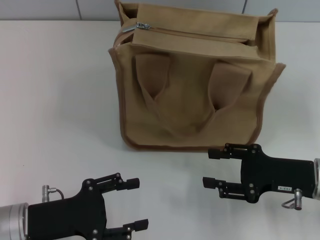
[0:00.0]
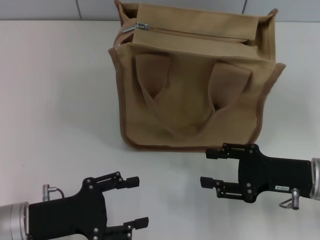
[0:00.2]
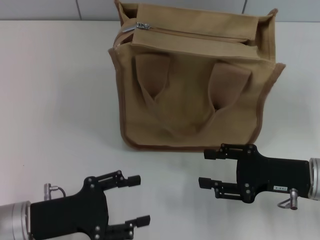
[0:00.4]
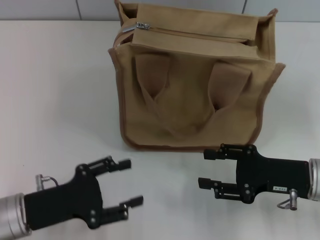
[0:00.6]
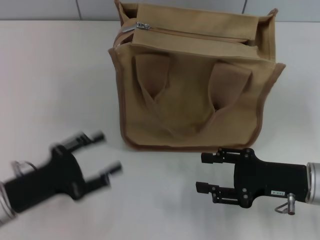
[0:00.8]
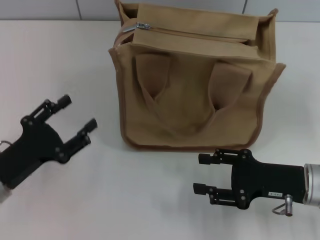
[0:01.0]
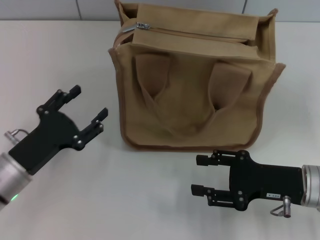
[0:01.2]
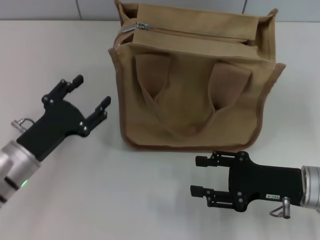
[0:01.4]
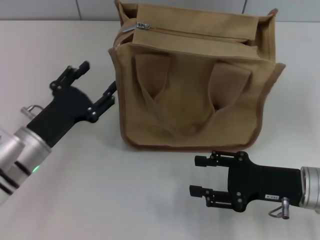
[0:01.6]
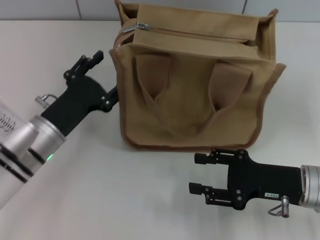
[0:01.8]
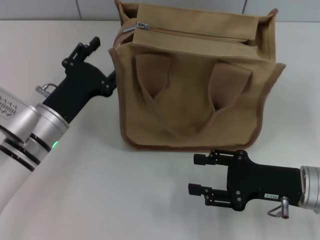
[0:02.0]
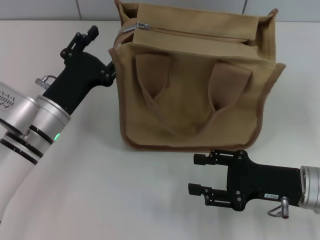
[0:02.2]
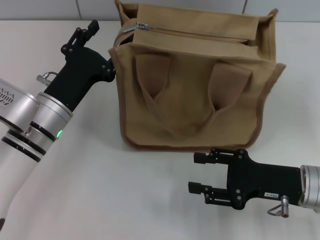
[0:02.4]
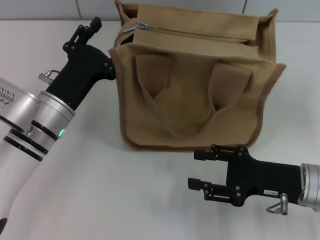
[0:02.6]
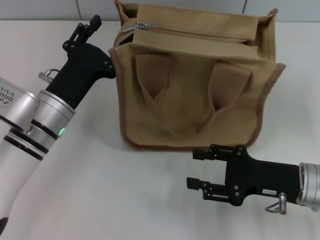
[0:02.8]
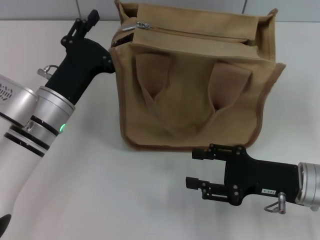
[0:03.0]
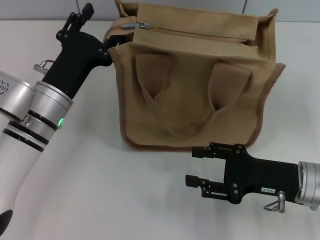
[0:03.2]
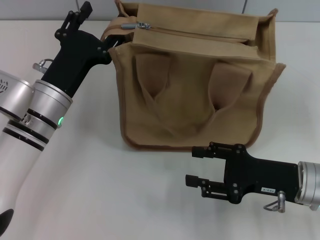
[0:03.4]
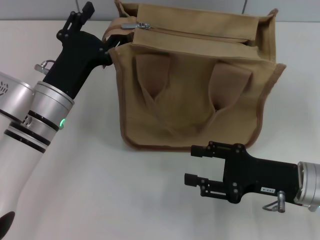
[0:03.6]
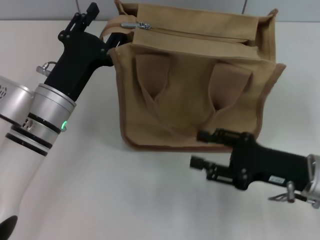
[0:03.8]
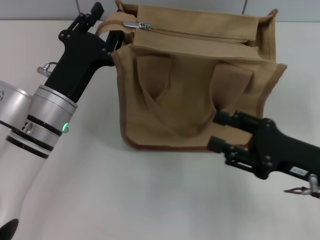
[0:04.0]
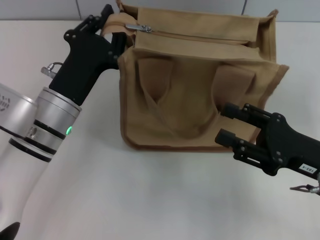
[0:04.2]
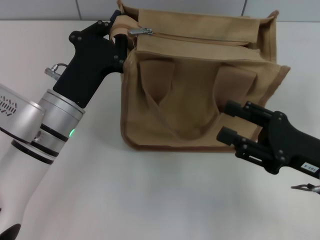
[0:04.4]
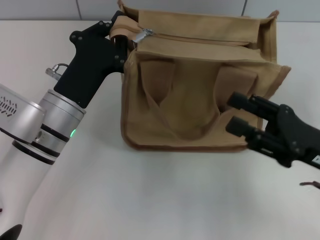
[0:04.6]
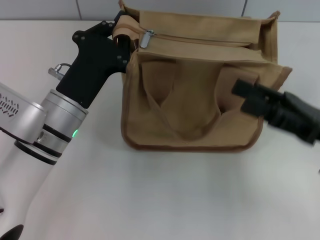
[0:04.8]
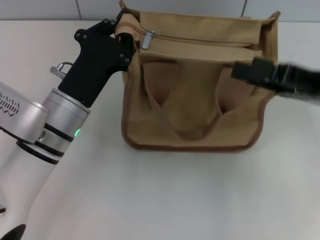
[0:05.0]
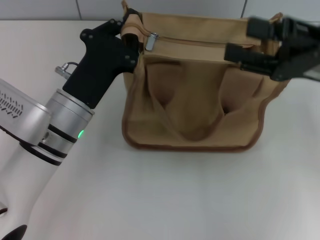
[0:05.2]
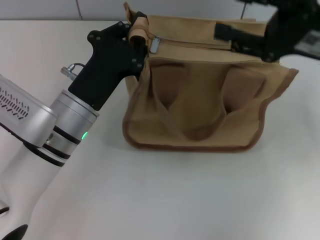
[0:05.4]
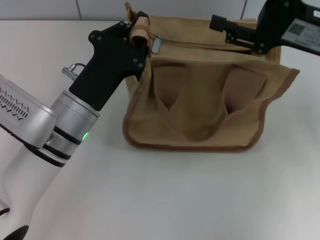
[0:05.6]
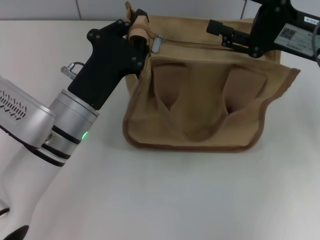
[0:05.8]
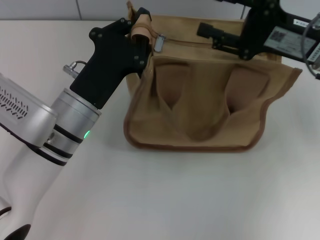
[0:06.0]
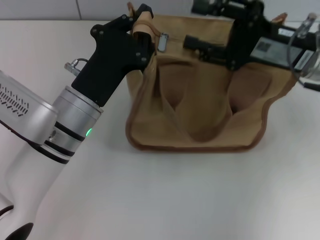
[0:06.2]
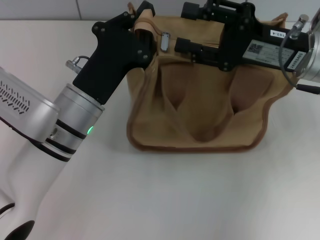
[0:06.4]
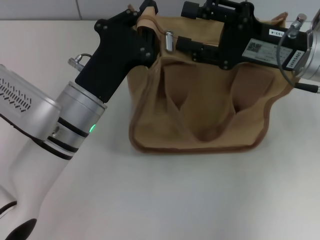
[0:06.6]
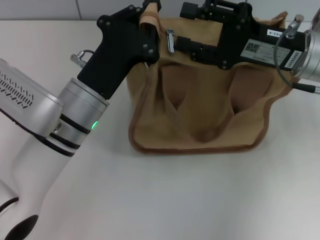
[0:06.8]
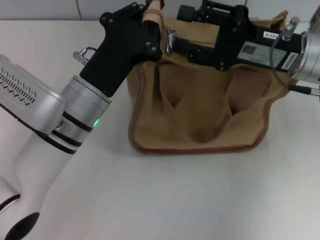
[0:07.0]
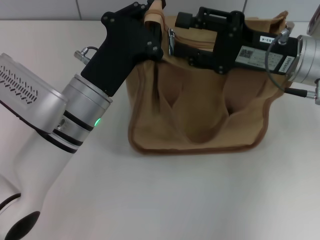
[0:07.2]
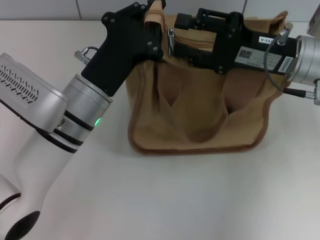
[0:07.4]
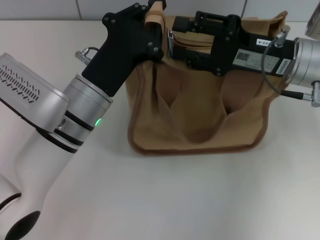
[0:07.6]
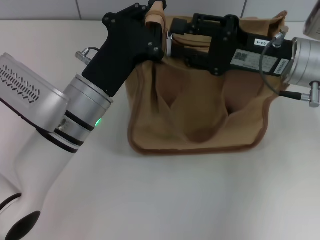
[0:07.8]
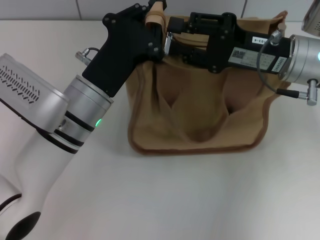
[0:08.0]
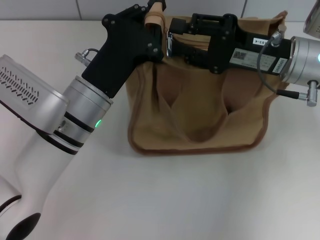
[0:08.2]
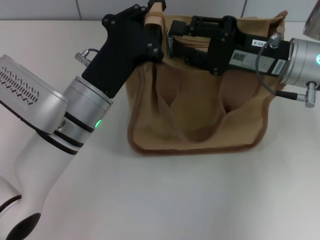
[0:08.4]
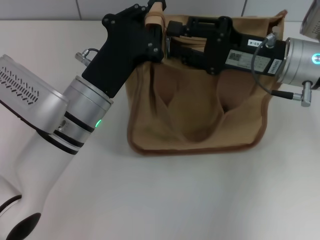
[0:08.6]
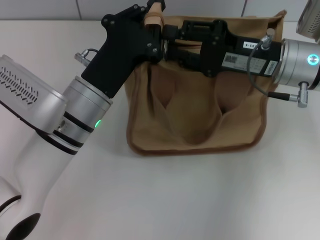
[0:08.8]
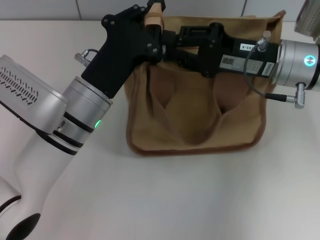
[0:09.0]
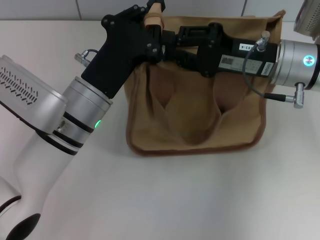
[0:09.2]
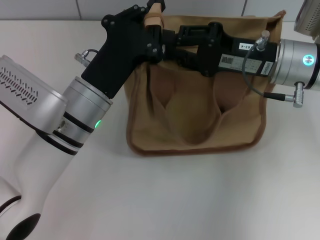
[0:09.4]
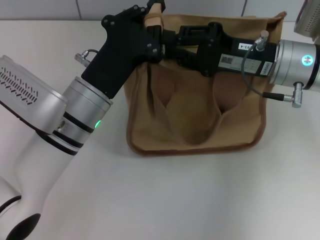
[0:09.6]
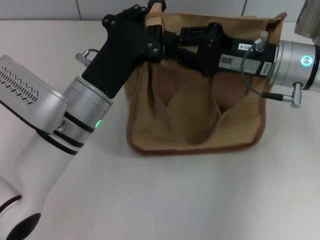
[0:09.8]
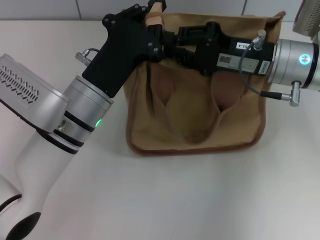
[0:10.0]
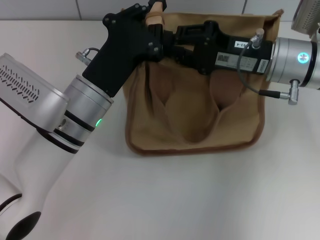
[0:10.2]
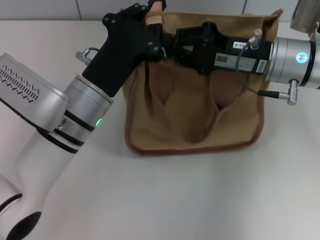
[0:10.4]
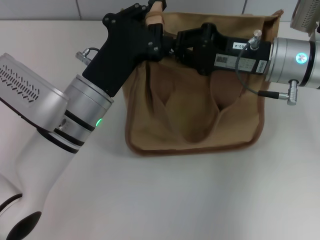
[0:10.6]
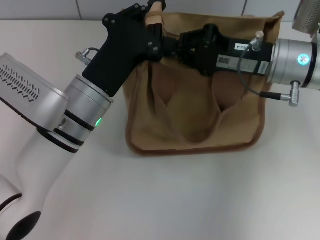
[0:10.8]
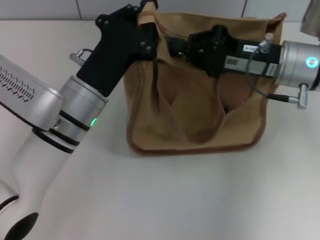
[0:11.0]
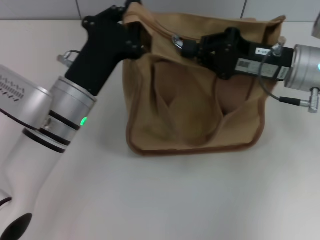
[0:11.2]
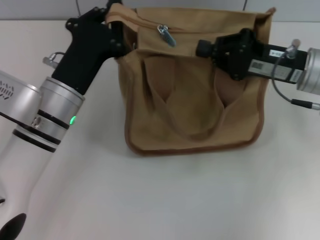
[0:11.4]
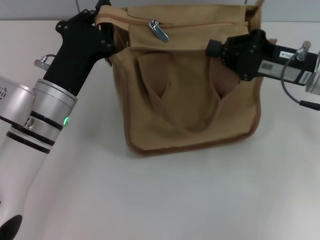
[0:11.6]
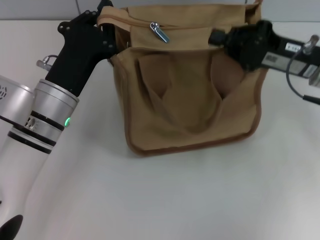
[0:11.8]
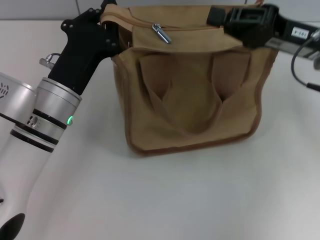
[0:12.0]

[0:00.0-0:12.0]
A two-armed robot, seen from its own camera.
0:00.0 to 0:01.6: The left gripper heads forward, covering roughly 5 cm.
0:01.6 to 0:03.0: The left gripper is displaced to the right and forward by some 5 cm.
0:03.0 to 0:04.4: The left gripper closes.
0:04.4 to 0:06.0: The right gripper moves forward and upward, some 15 cm.
0:07.6 to 0:09.0: There are only small adjustments of the grippers.
0:09.0 to 0:10.4: Both grippers stay about where they are.
0:10.4 to 0:12.0: The right gripper heads to the right, covering approximately 5 cm.

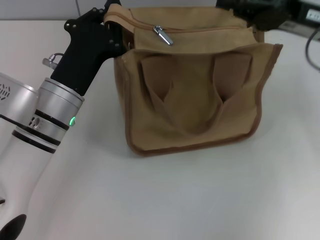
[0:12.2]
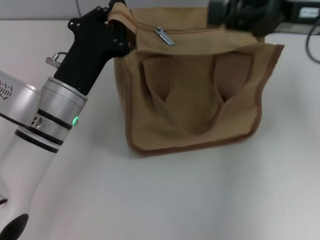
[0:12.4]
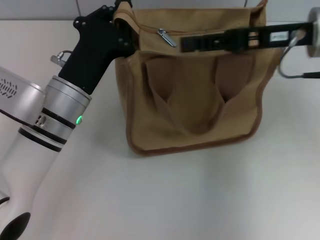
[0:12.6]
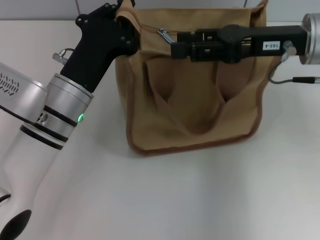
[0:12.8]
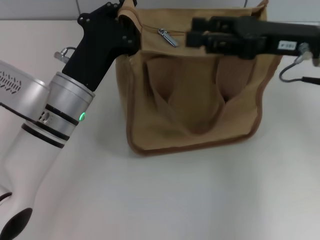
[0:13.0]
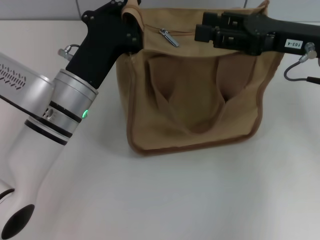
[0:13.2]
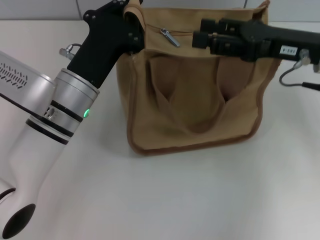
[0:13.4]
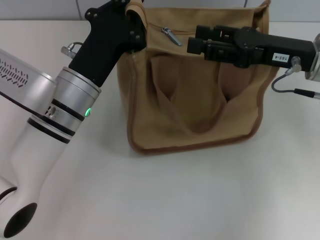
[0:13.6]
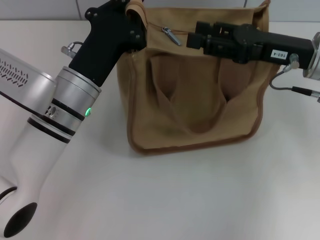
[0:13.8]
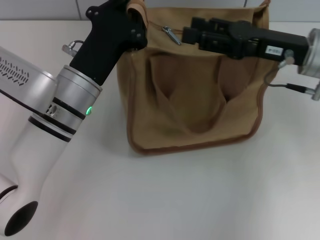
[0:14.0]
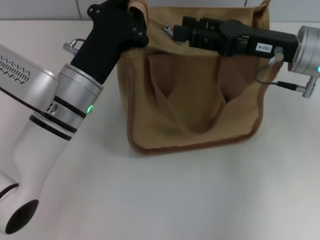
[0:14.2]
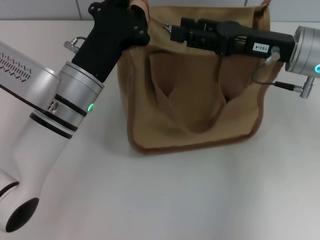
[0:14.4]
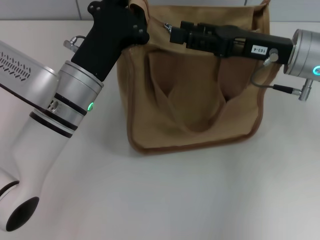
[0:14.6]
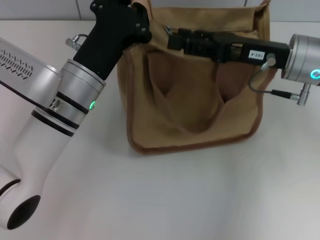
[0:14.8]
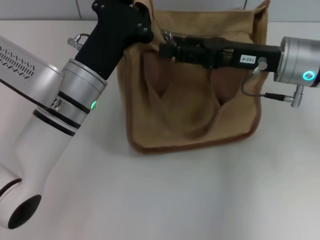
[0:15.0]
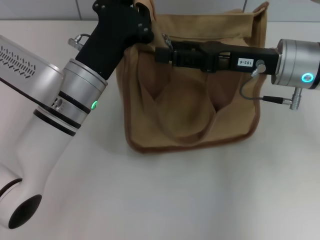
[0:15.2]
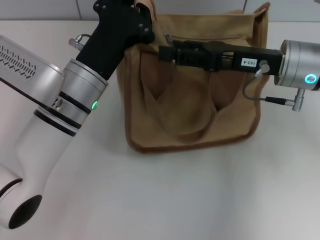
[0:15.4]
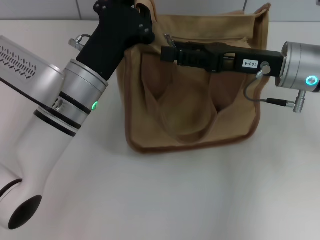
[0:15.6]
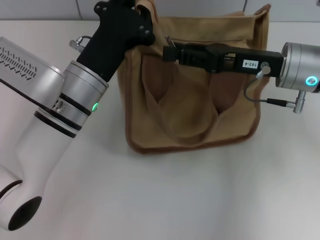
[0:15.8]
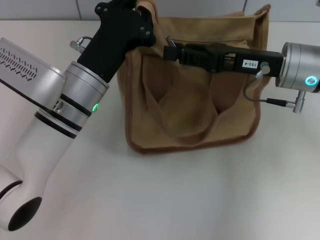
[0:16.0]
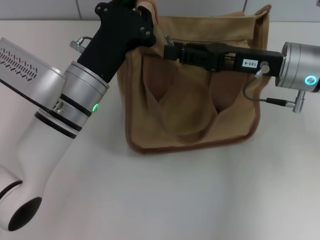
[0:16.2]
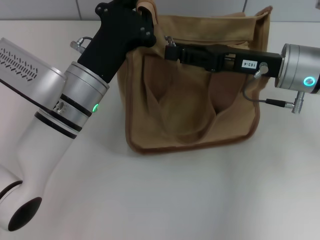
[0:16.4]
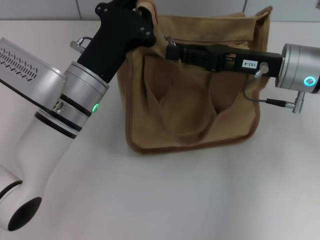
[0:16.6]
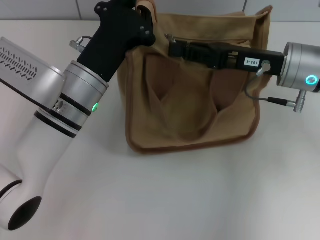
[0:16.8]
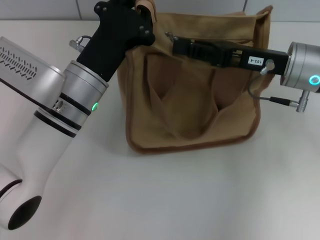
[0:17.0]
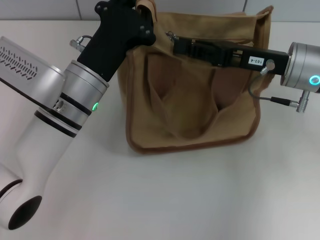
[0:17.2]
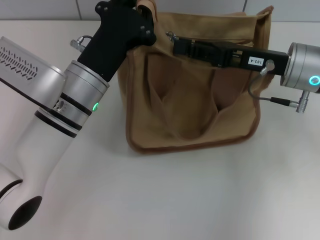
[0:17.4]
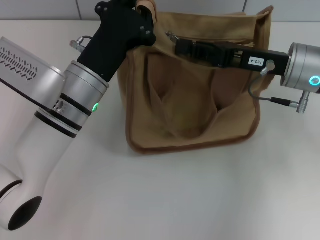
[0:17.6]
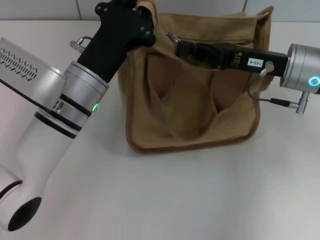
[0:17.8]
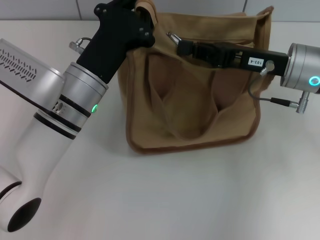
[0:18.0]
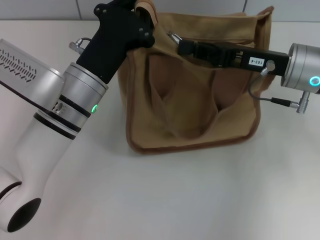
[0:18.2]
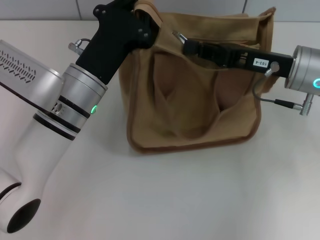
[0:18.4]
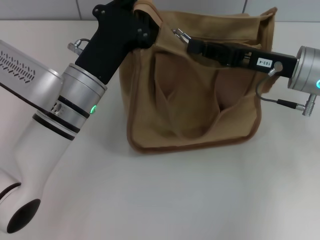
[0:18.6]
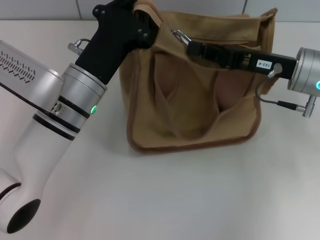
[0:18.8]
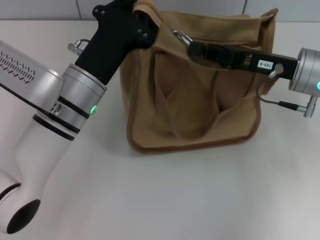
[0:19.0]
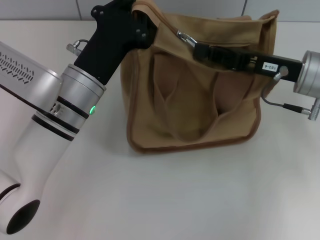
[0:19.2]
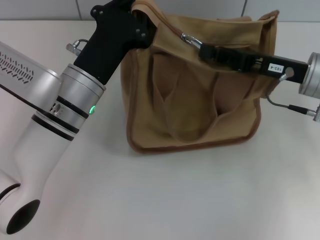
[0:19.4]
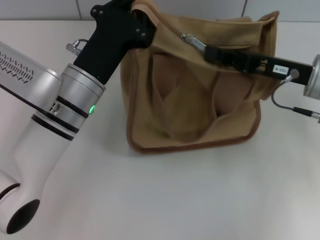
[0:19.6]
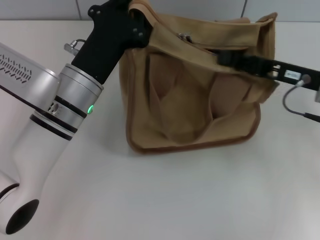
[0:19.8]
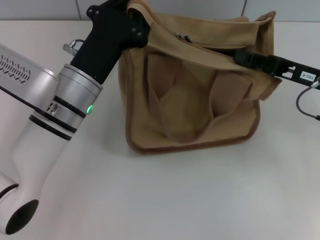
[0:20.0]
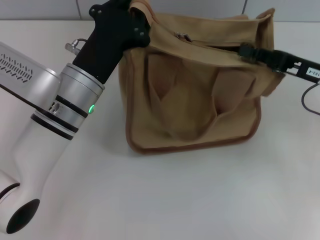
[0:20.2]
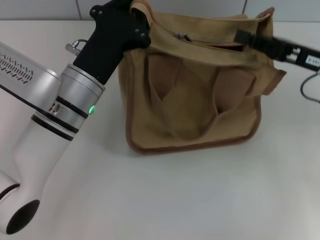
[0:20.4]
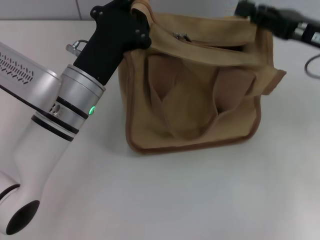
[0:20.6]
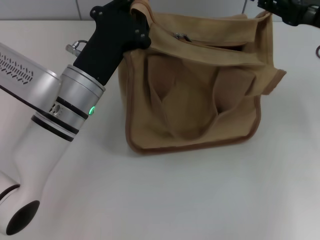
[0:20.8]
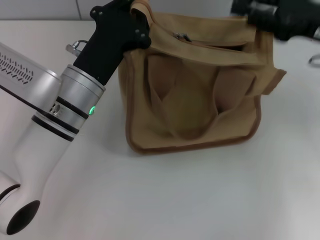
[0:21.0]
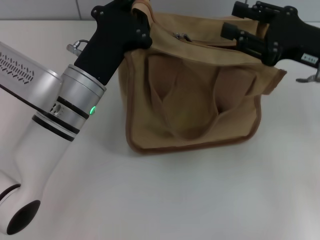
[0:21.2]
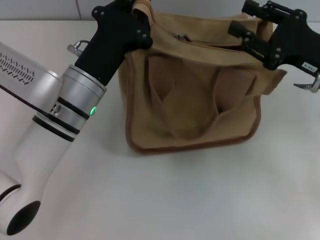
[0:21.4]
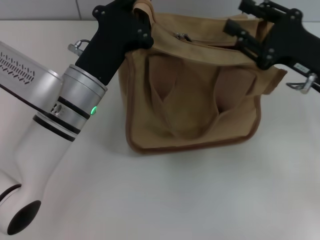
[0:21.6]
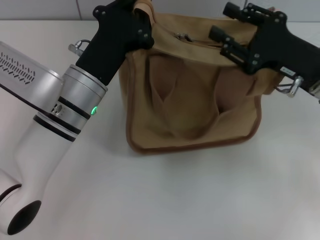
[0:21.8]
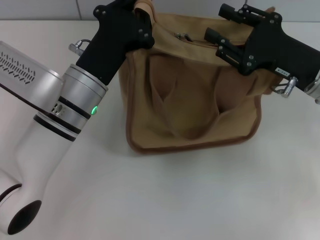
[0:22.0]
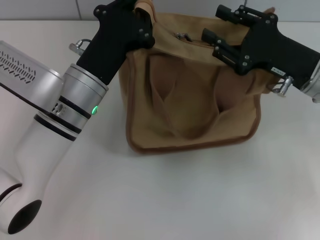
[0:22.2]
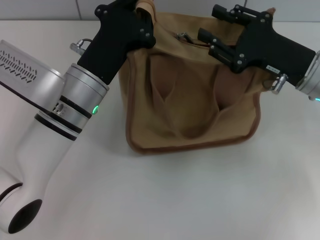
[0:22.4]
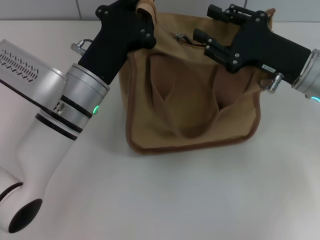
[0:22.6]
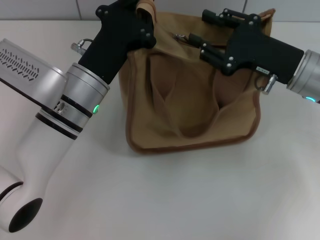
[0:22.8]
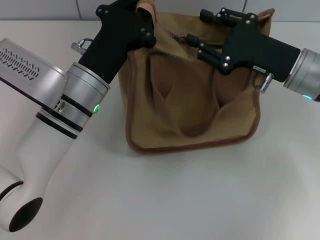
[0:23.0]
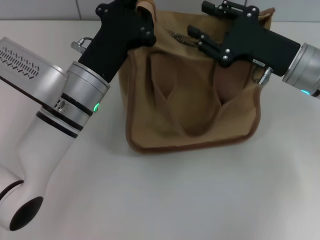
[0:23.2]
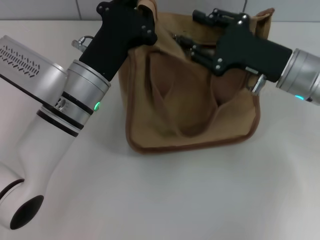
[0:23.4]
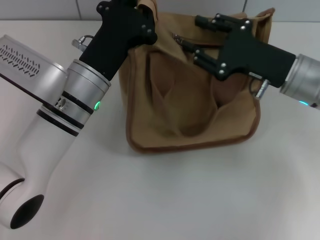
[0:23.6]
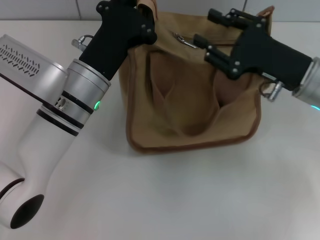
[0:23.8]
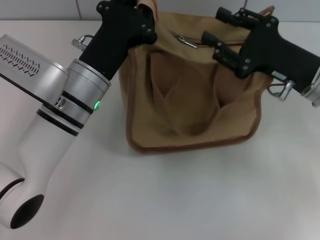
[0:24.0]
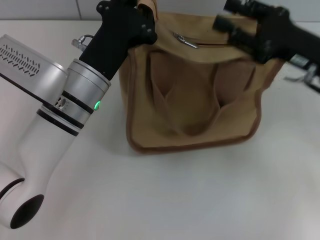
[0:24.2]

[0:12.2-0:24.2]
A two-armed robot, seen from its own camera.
0:12.2 to 0:13.8: The right gripper opens.
0:13.8 to 0:15.2: The grippers move only a little.
0:15.2 to 0:16.6: The right gripper closes up.
0:16.6 to 0:18.2: The right gripper closes.
0:18.2 to 0:19.8: The right gripper goes some 5 cm to the right.
0:19.8 to 0:21.2: The right gripper opens up.
0:21.2 to 0:22.6: The right gripper moves approximately 5 cm.
0:22.6 to 0:24.2: The grippers move only a little.
